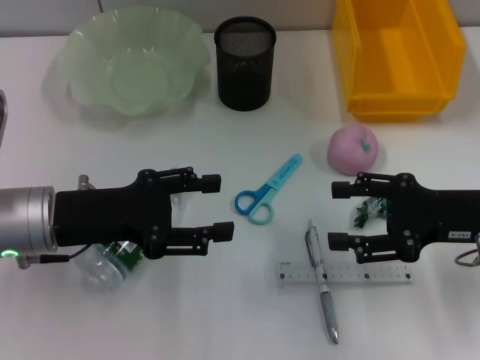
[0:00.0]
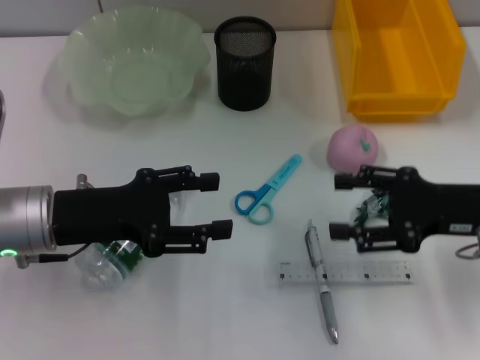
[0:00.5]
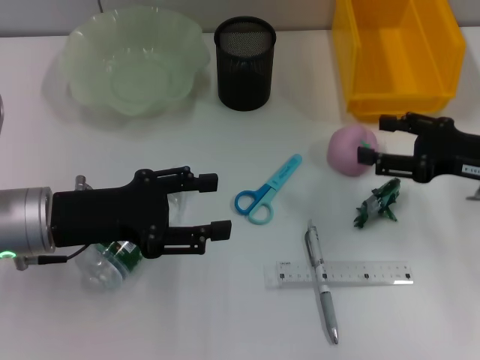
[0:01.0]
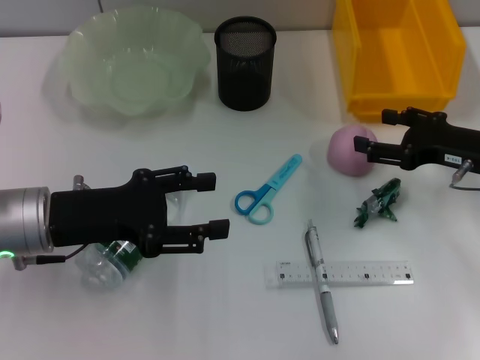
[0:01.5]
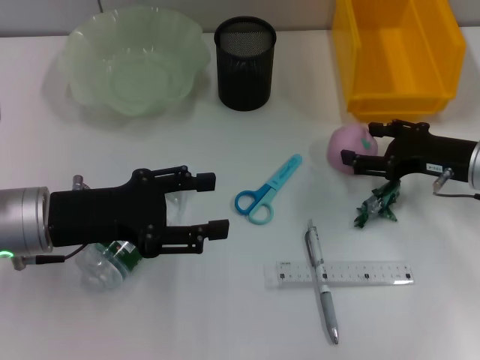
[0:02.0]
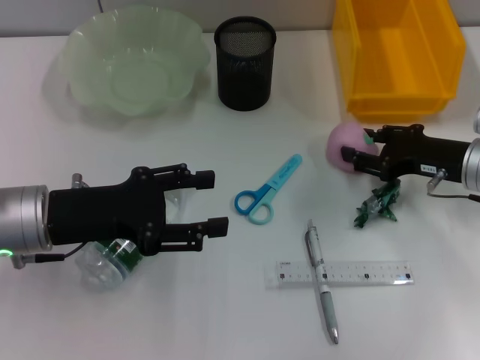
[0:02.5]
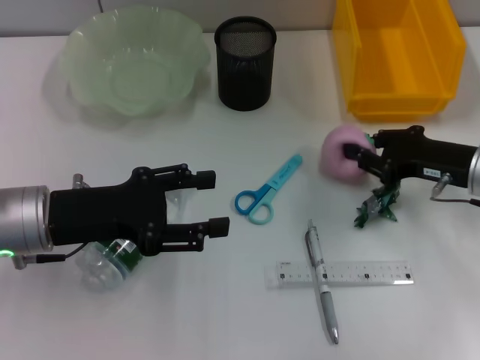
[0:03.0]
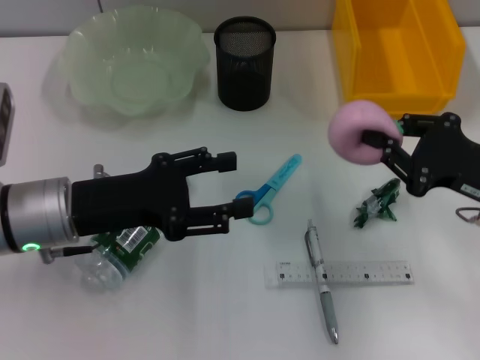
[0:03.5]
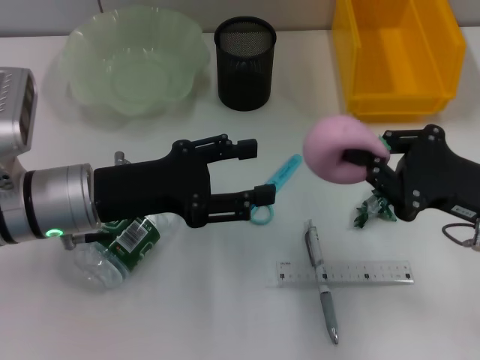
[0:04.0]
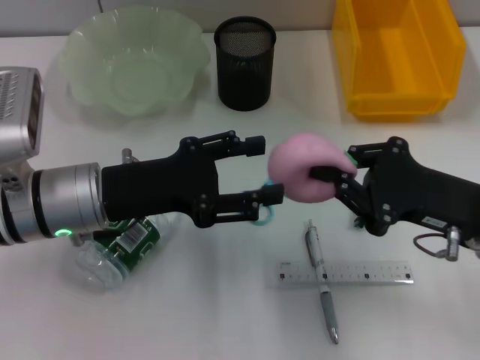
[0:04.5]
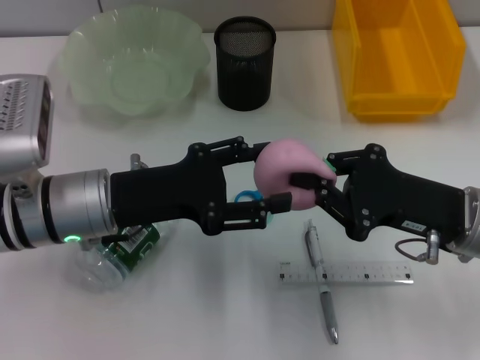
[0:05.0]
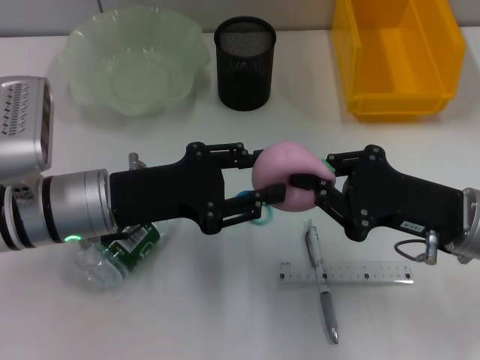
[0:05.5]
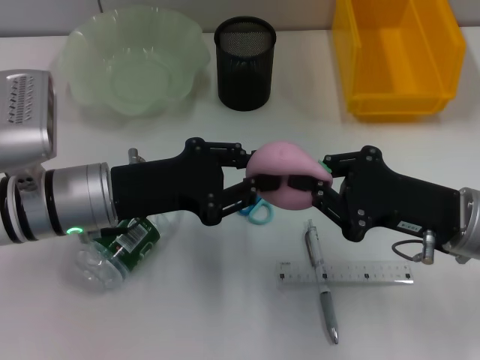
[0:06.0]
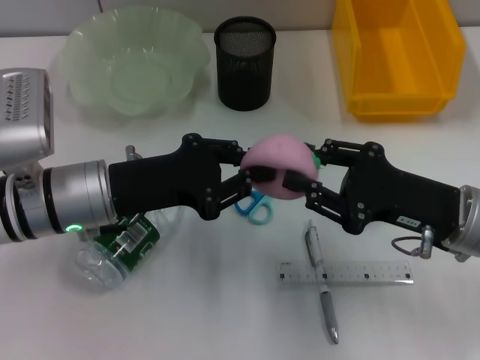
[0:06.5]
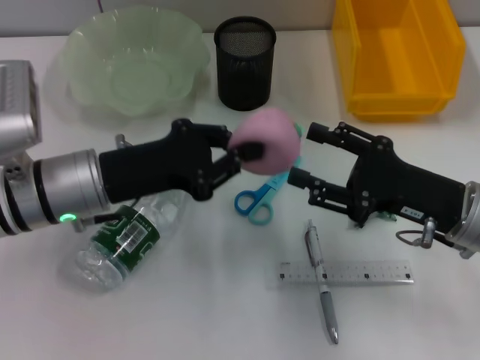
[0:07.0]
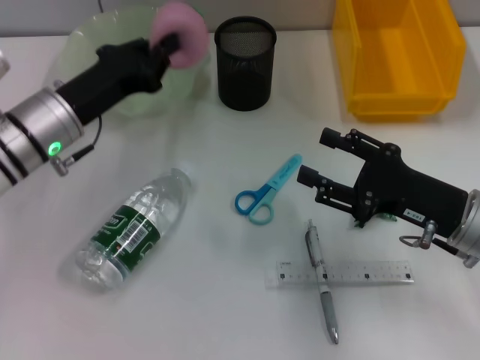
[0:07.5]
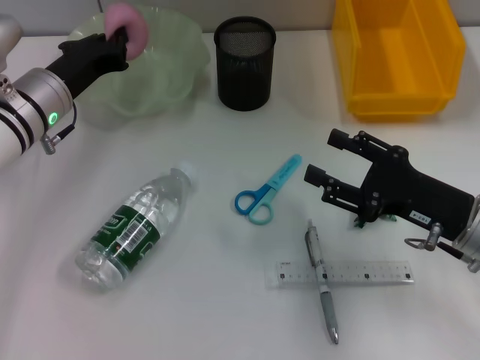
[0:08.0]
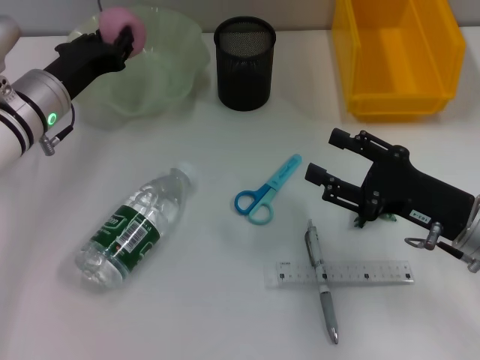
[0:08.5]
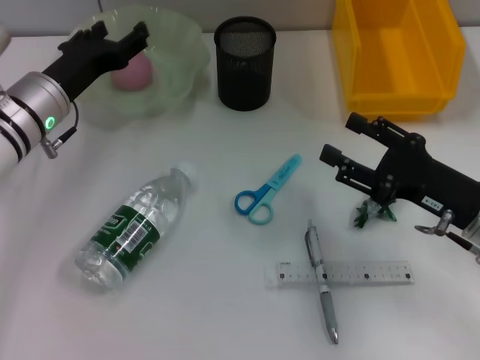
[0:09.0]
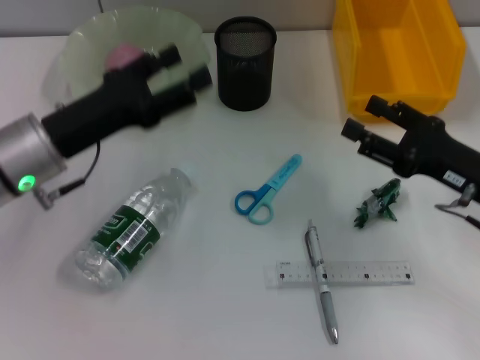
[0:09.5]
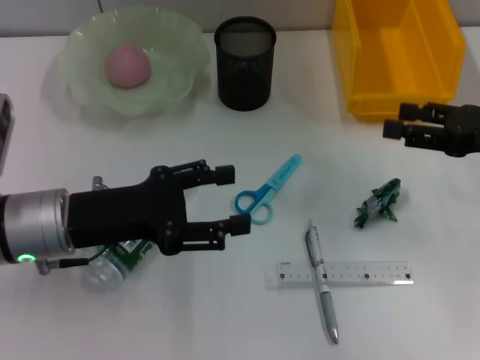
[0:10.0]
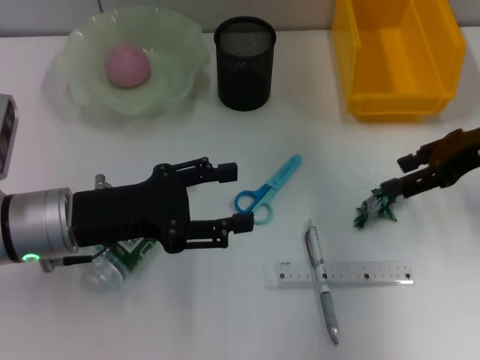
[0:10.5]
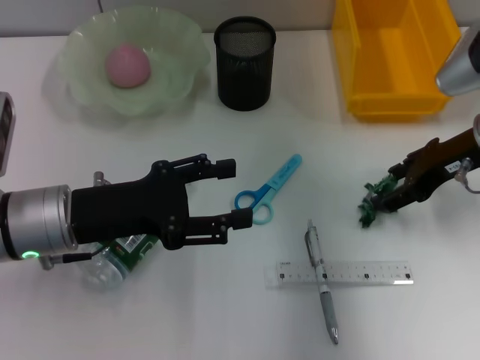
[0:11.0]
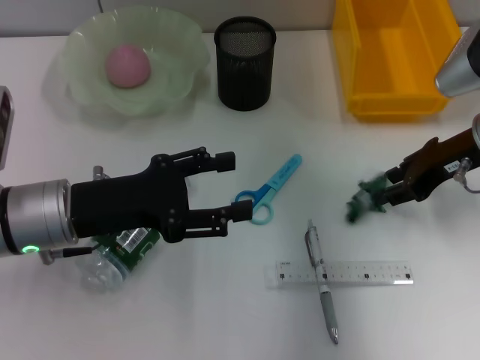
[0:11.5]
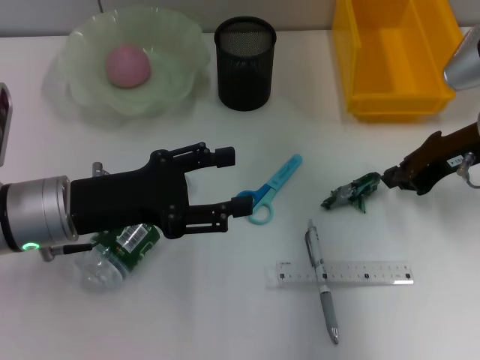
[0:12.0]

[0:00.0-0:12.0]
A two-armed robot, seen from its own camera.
Step, 0:00.0 to 0:02.5: Grab the peach with the right hand.
Step, 0:03.0 to 0:06.5: Pass the peach from the right hand to the left hand.
Step, 0:07.0 to 0:09.0: Place the peach into the fruit bowl with the left hand.
0:00.0 to 0:02.0: The right gripper is displaced forward by roughly 5 cm.
0:02.0 to 0:04.0: The right gripper shifts about 10 cm backward, and closes up.
0:04.0 to 0:06.0: The left gripper closes.
0:06.0 to 0:08.0: The left gripper moves forward, about 10 cm. Meanwhile the right gripper opens its fingers.
0:08.0 to 0:10.0: The left gripper goes some 10 cm backward, and opens up, while the right gripper heads to the right, upward and forward, covering about 10 cm.
0:10.0 to 0:12.0: The right gripper moves to the left, some 5 cm, and closes its fingers.

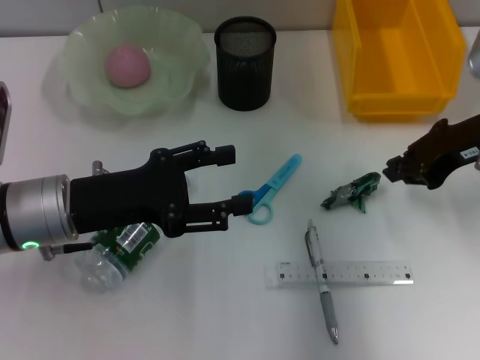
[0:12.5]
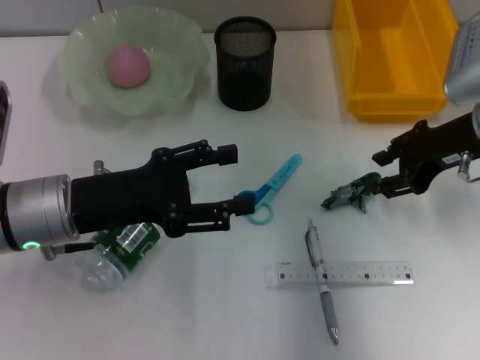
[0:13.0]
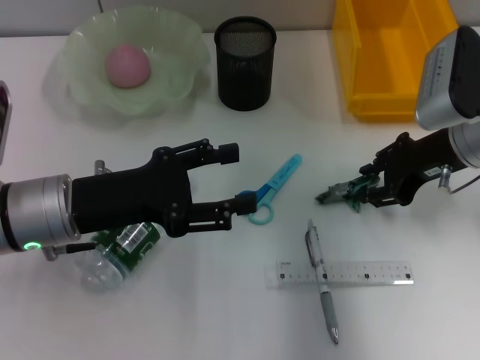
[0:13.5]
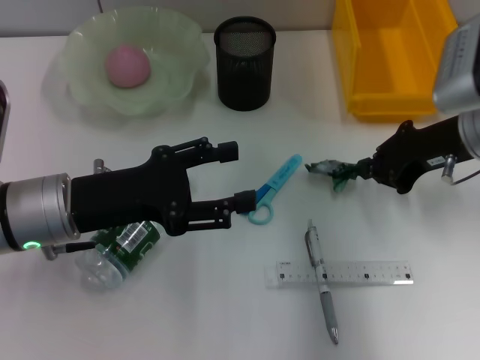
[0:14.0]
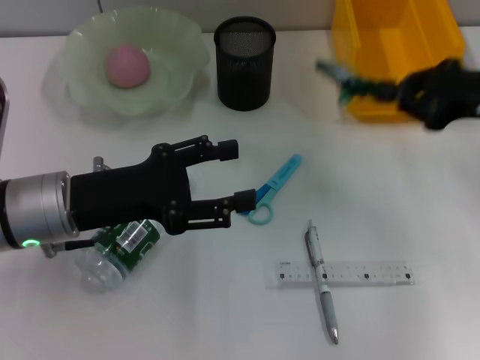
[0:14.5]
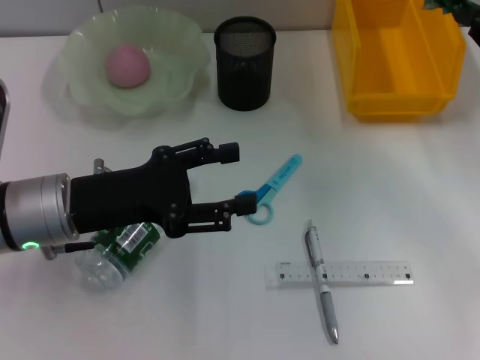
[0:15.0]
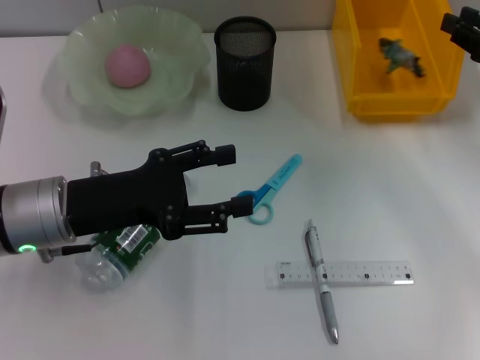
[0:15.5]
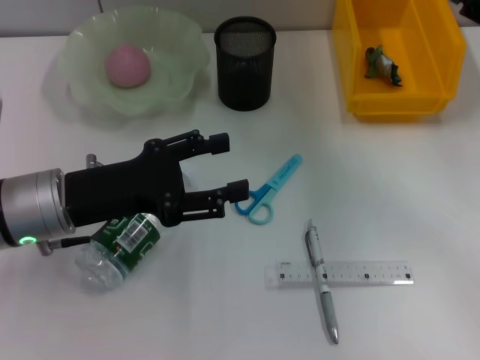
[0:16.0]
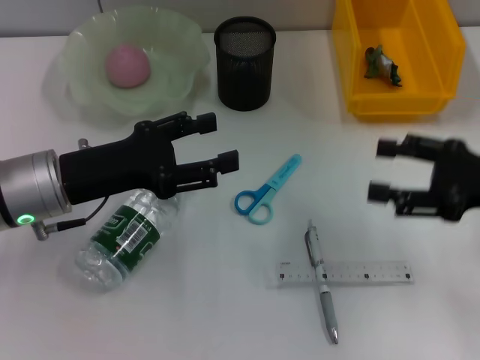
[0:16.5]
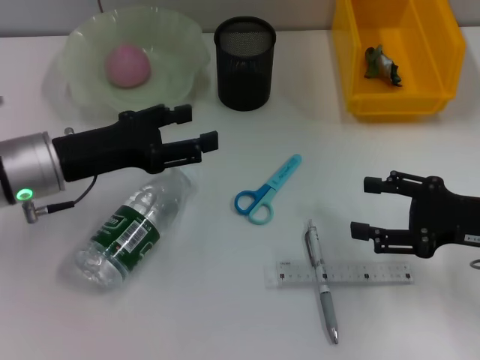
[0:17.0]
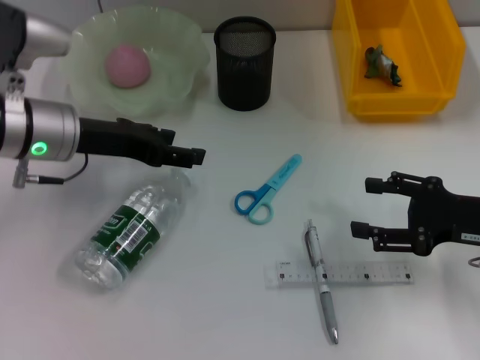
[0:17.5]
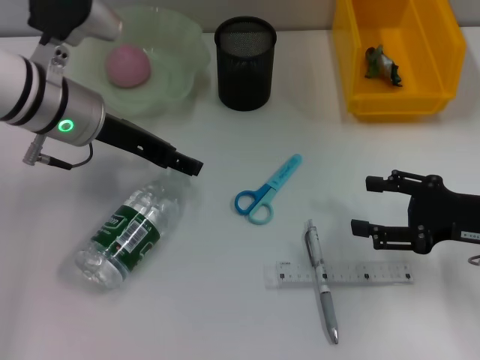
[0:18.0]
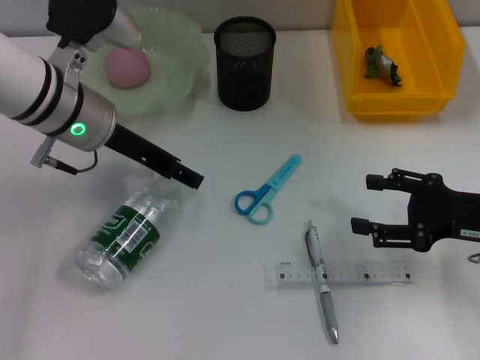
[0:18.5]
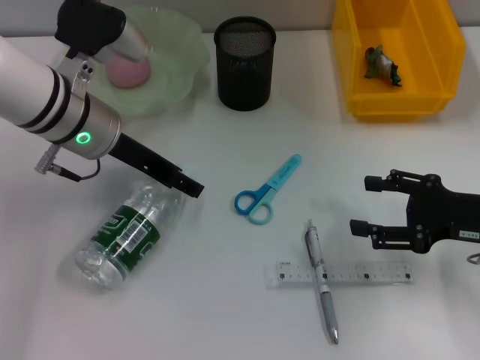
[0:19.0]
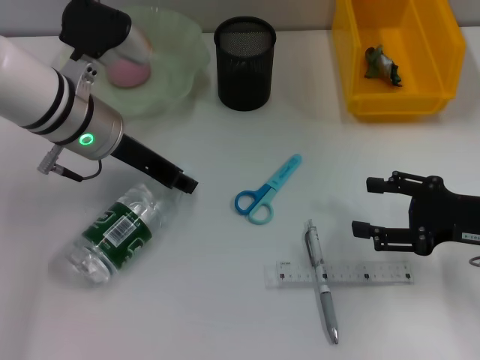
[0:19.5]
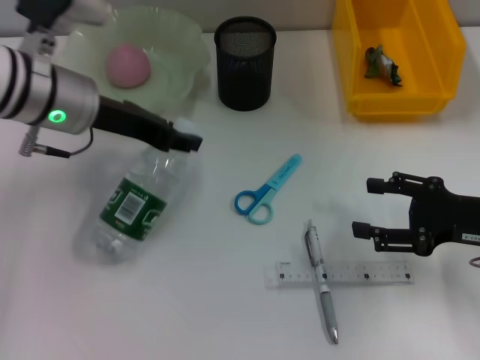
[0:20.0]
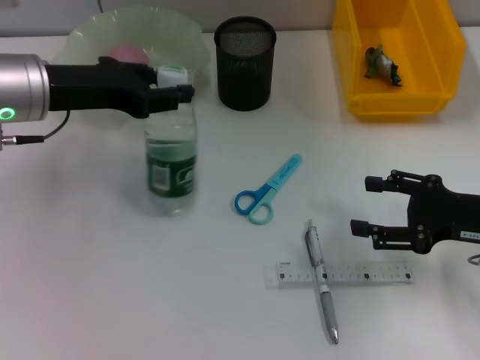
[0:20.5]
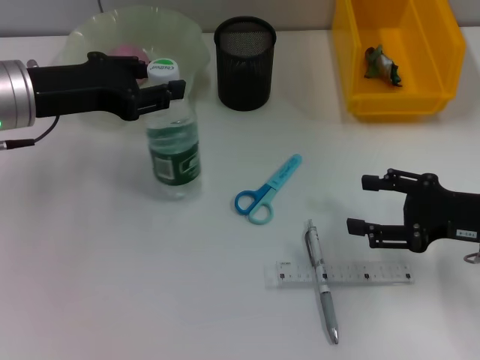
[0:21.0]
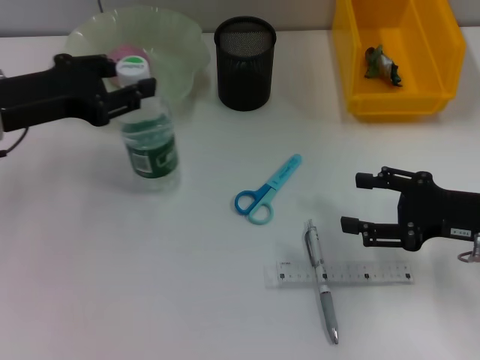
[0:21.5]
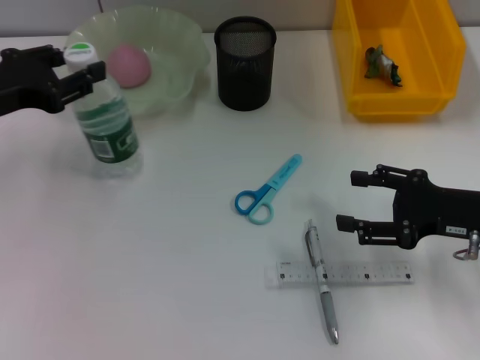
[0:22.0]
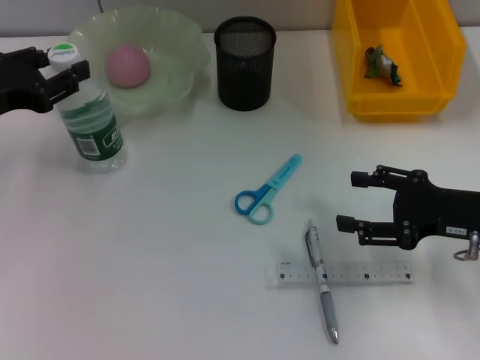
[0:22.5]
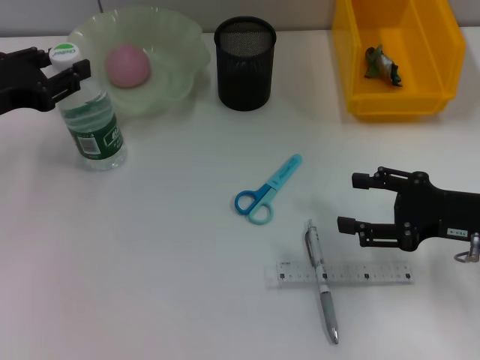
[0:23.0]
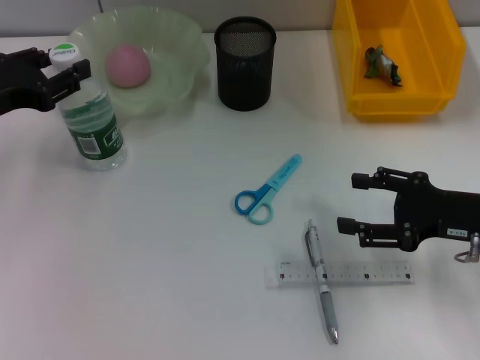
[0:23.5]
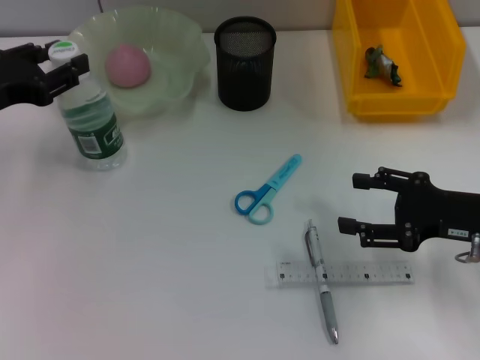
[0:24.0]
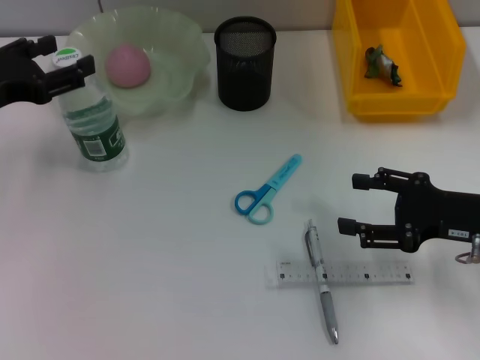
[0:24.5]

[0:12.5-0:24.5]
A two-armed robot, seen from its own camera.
Step, 0:14.0 to 0:15.5: Place the plastic into the trash can with the right hand.
Step, 0:16.0 to 0:19.0: Grab the water bottle with the left hand.
Step, 0:19.5 to 0:24.0: Place the water bottle on the table with the left hand.
0:12.5 to 0:14.5: The right gripper opens, then closes once more.
0:14.5 to 0:16.5: The right gripper heads backward and downward, covering roughly 10 cm, and opens its fingers.
0:16.5 to 0:18.5: The left gripper is displaced forward by about 10 cm.
0:18.5 to 0:20.5: The left gripper moves to the left, approximately 5 cm, and closes up.
0:20.5 to 0:22.5: The left gripper travels to the left by approximately 10 cm.
0:22.5 to 0:24.5: The left gripper opens up.

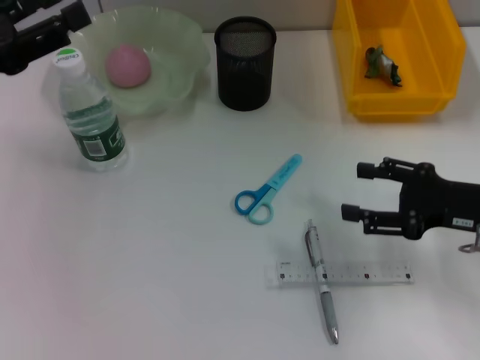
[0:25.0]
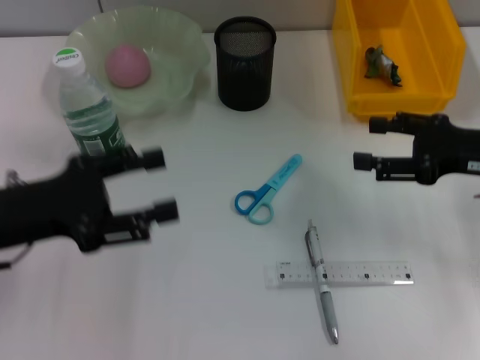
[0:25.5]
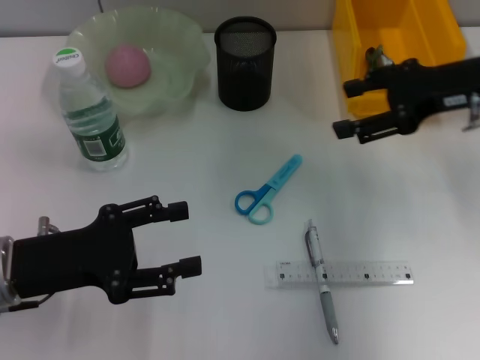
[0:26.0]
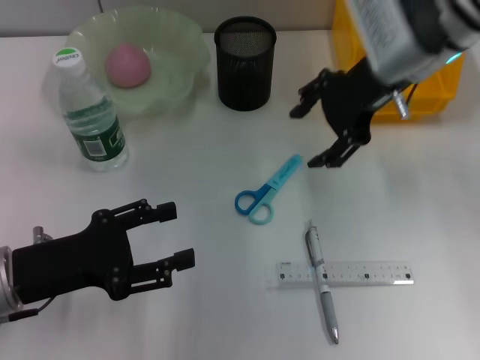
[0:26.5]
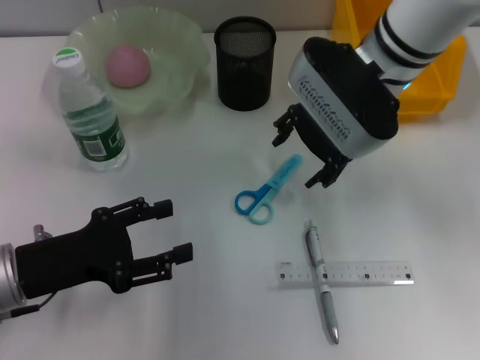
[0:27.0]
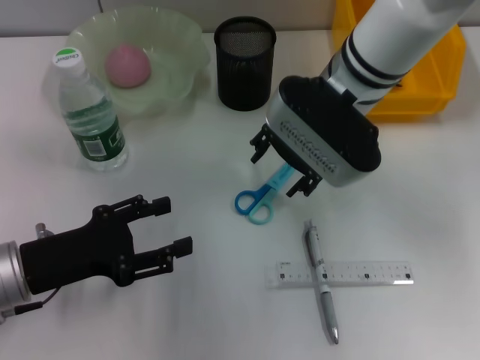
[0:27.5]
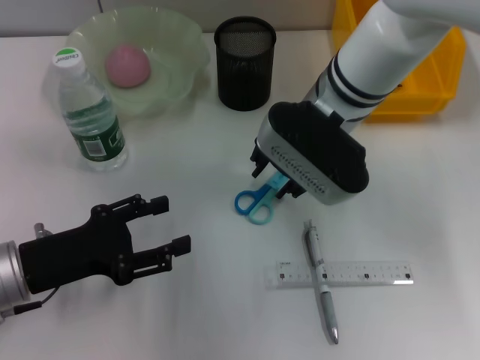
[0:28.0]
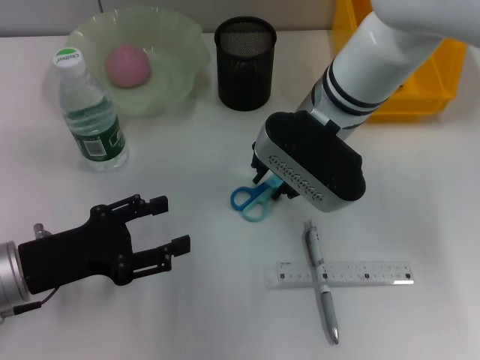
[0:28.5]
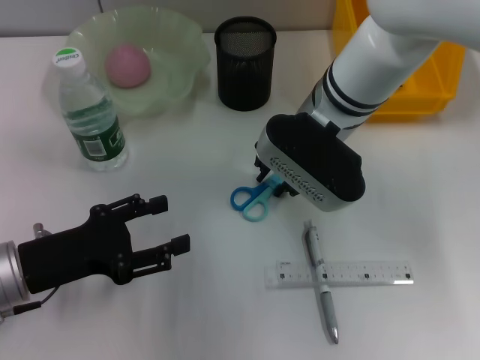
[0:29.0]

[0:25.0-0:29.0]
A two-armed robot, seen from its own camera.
0:25.0 to 0:27.0: The right gripper is displaced to the left, forward and upward by roughly 25 cm. Meanwhile the left gripper moves downward and backward, some 15 cm.
0:27.0 to 0:29.0: The right gripper changes place by roughly 5 cm, and closes its fingers.
